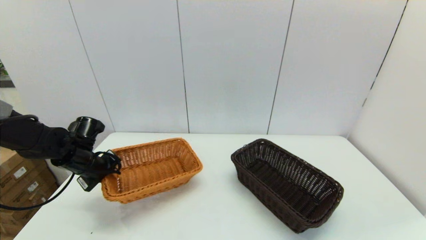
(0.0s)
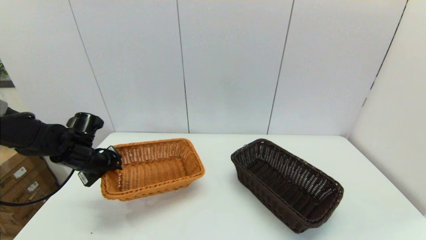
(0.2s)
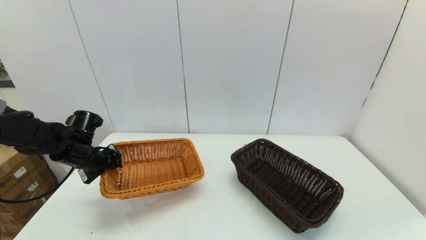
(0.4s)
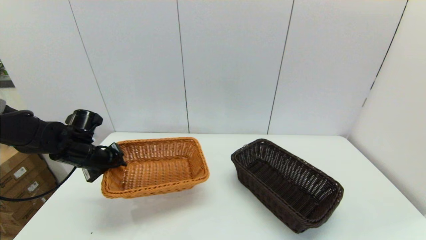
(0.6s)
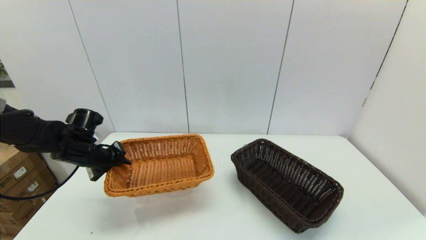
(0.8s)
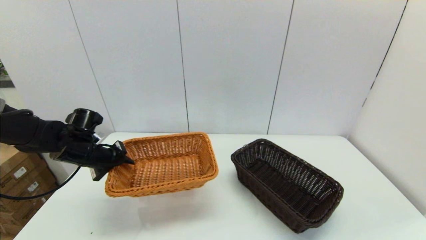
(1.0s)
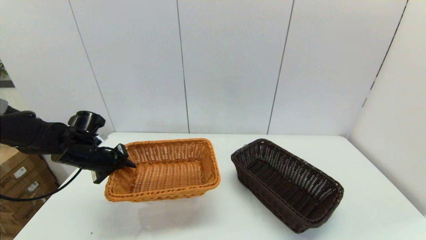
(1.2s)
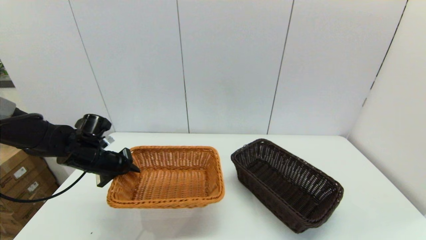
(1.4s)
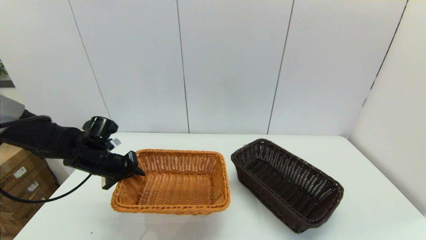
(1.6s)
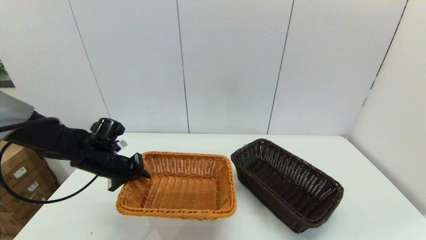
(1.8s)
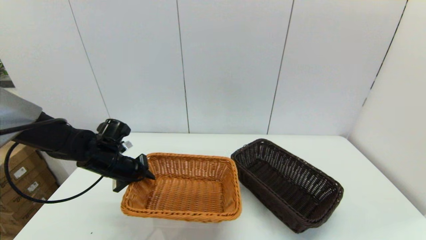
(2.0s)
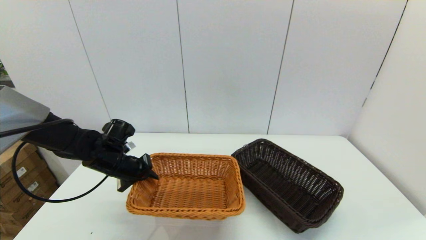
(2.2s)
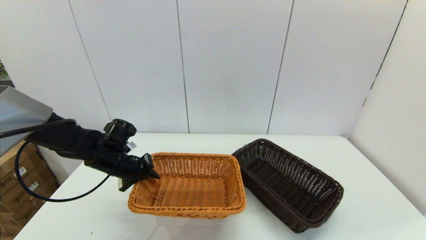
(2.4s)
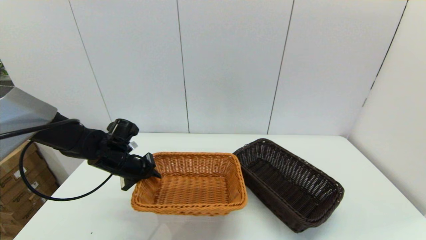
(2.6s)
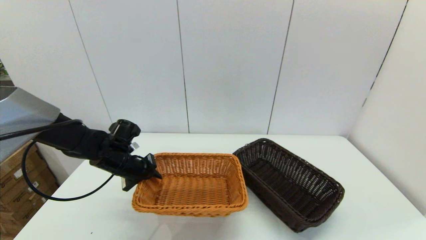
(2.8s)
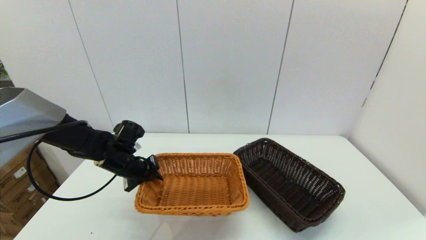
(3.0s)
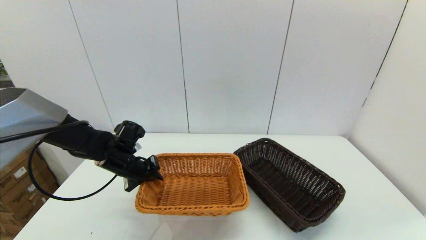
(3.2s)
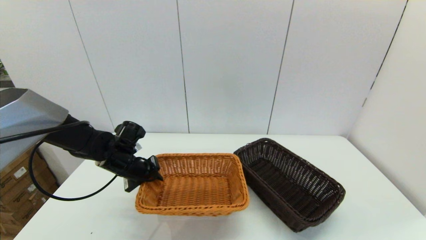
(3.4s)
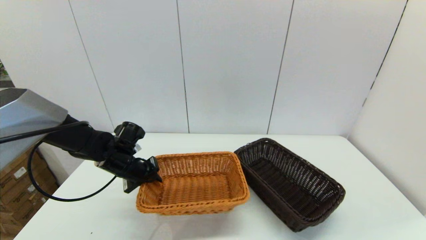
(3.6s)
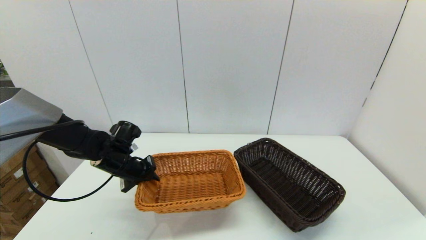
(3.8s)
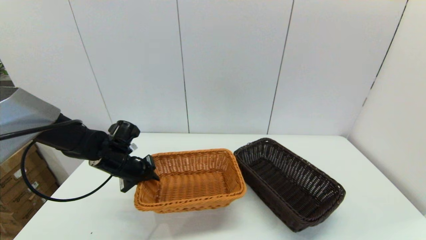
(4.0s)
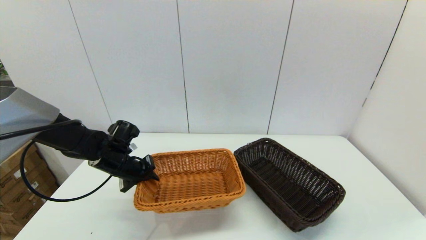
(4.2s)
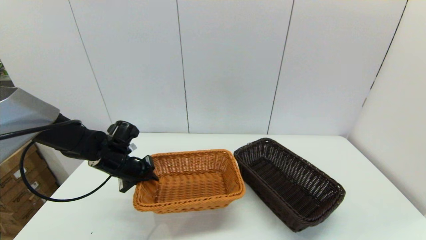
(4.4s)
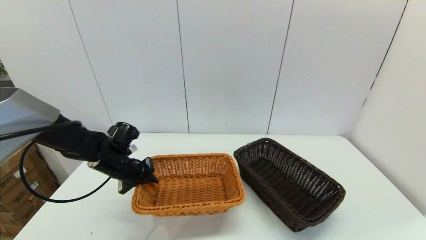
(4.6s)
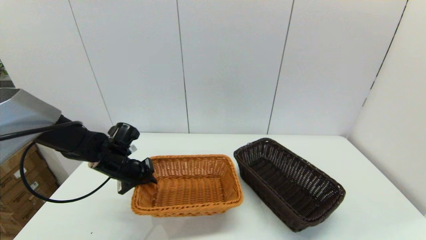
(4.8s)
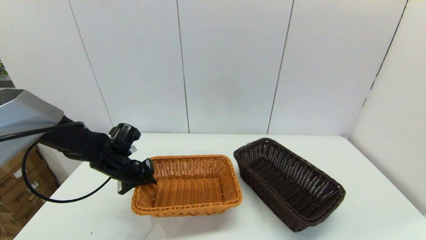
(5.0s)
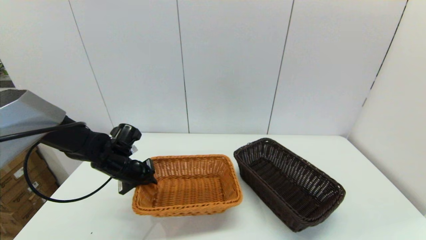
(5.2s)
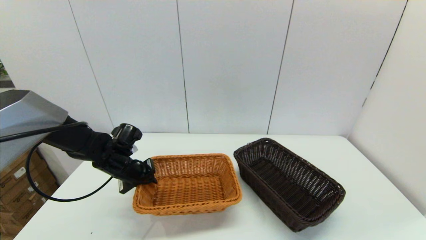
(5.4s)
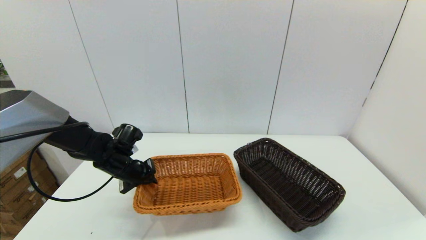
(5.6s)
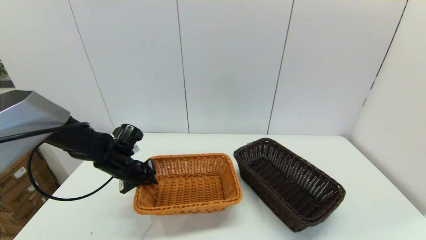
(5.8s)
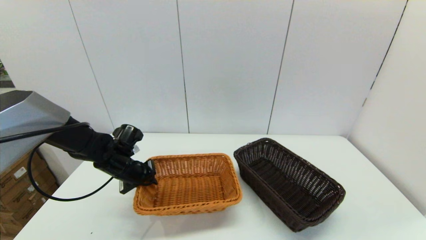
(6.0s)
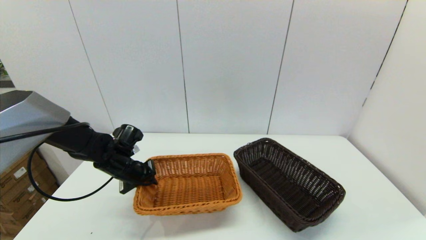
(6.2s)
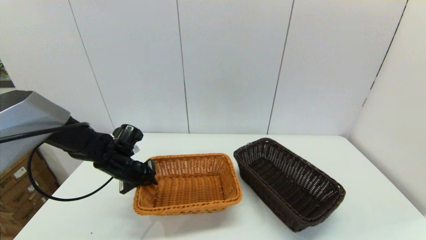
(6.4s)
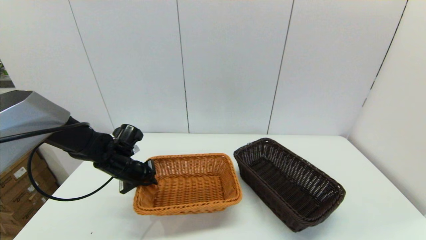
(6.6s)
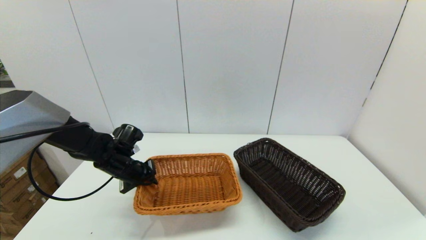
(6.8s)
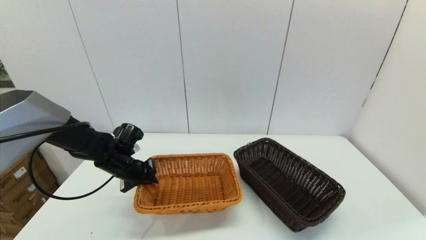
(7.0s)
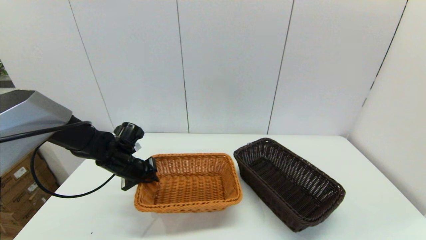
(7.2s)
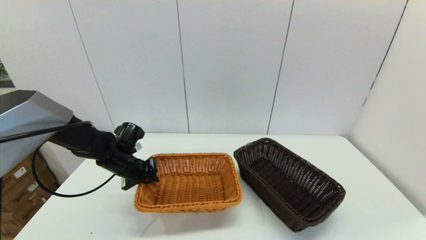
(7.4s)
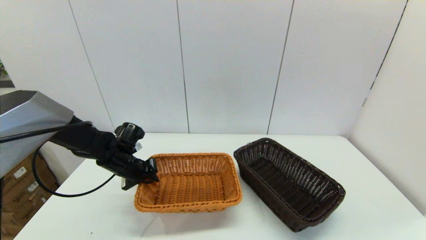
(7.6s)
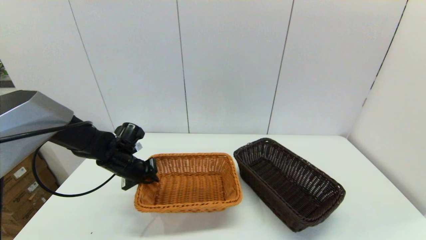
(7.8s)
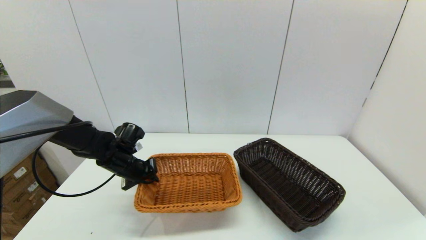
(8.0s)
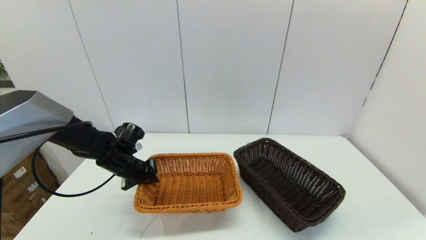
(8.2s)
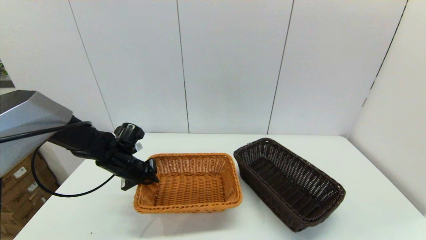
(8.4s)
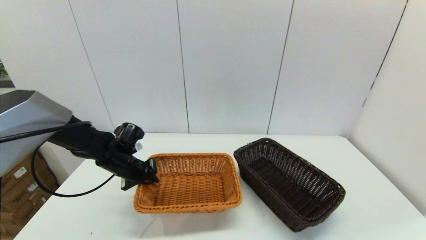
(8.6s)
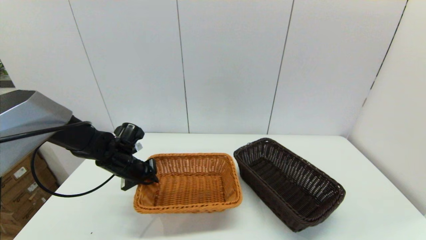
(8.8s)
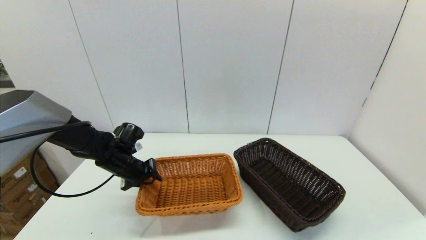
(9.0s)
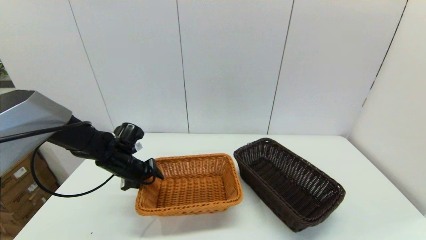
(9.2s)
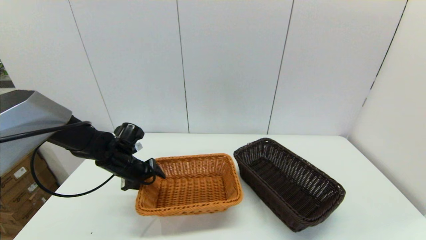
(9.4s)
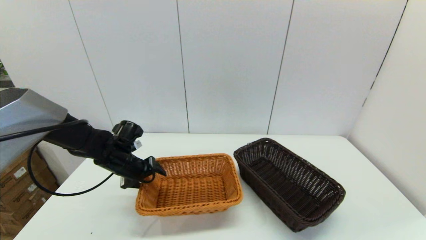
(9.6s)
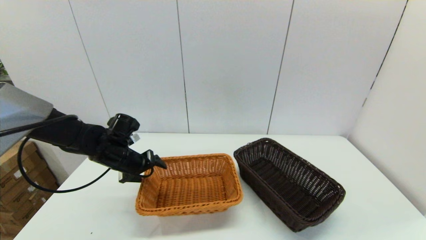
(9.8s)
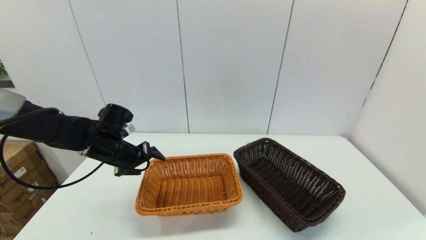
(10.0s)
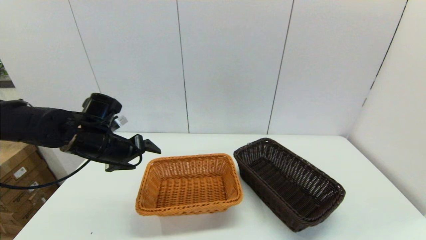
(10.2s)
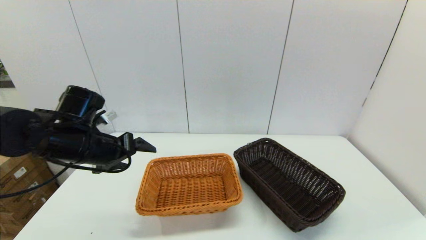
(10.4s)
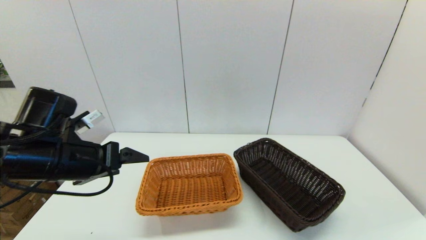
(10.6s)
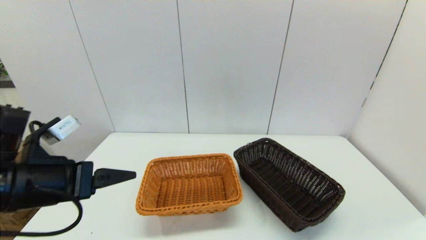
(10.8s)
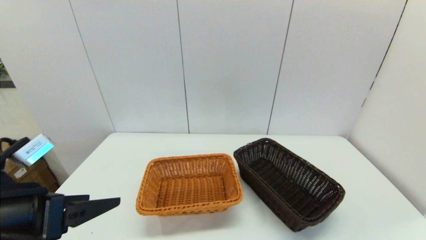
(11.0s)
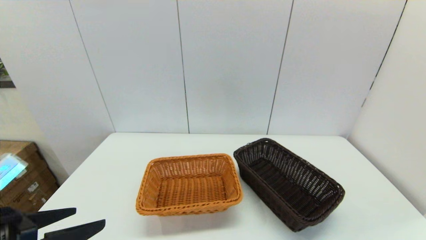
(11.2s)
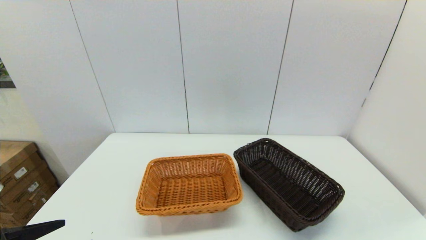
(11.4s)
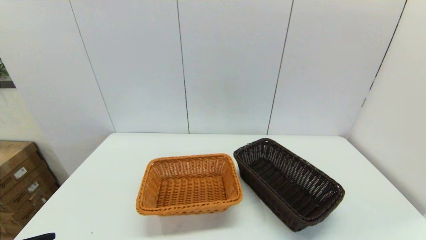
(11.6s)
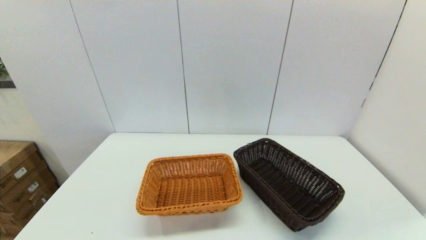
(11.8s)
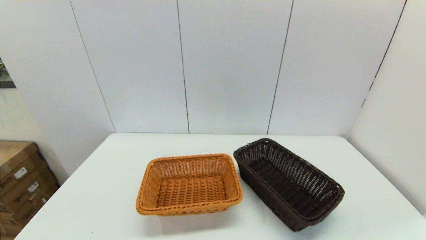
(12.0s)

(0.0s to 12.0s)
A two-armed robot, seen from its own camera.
Task of the whole recording: stack a basket on top of another basket.
Step, 0.0s - 10.2s: Place the light basket on the middle of the table with the left gripper.
1.6s - 3.0s: The left gripper ends up roughly 5 cm from where it was.
3.0s - 4.4s: Both grippers stay put.
4.4s - 6.0s: The grippers move only a little.
6.0s - 7.6s: Both grippers stay about where they are.
7.6s - 9.0s: The left gripper opens.
9.0s - 10.4s: The left gripper travels upward and backward by some 15 cm, and opens.
10.4s - 12.0s: The left gripper goes approximately 25 cm backward.

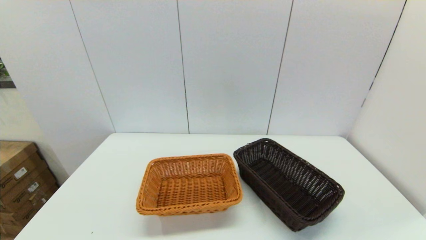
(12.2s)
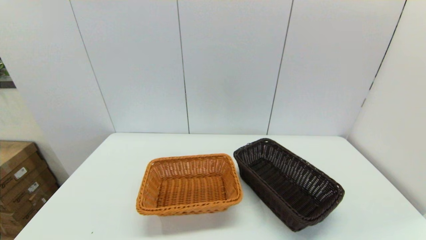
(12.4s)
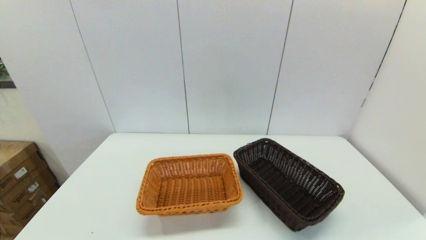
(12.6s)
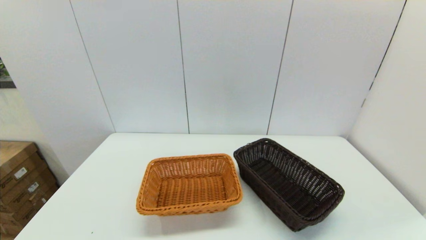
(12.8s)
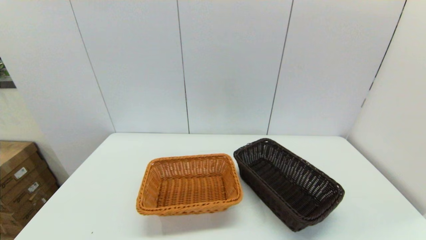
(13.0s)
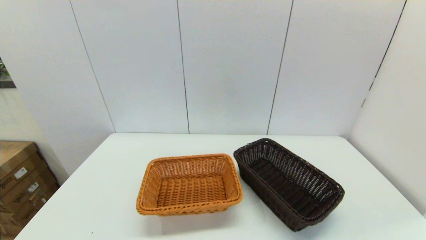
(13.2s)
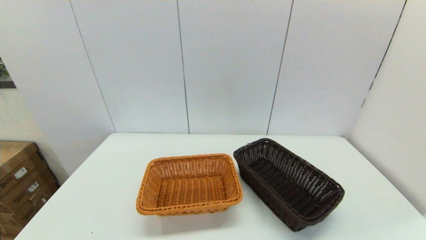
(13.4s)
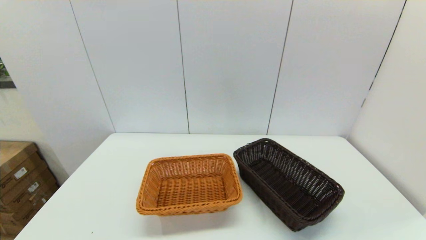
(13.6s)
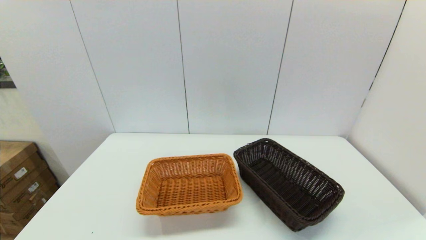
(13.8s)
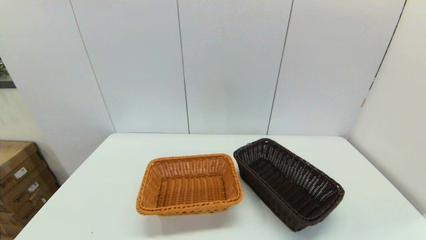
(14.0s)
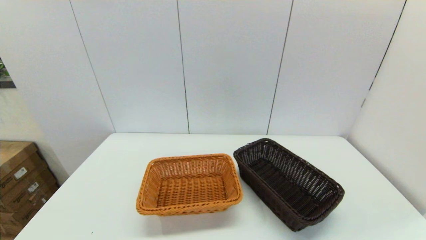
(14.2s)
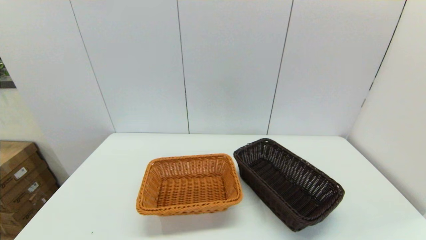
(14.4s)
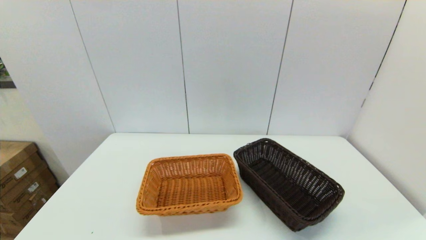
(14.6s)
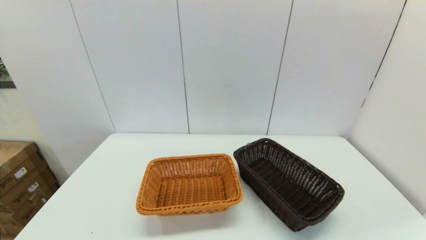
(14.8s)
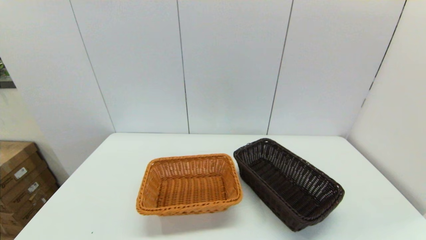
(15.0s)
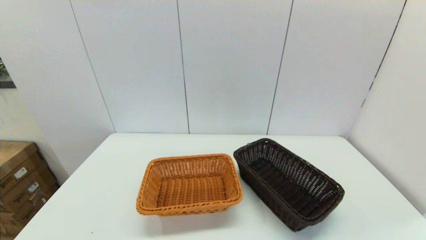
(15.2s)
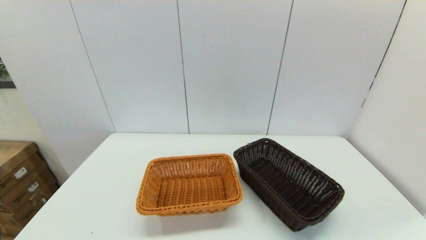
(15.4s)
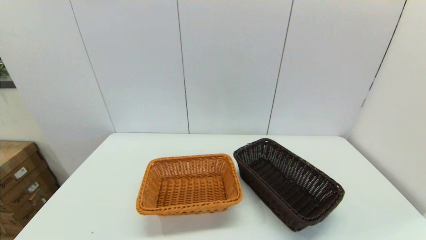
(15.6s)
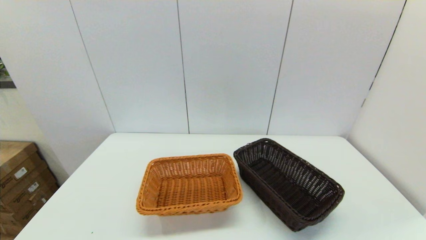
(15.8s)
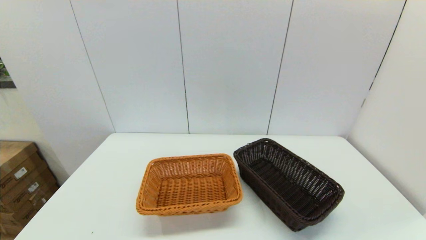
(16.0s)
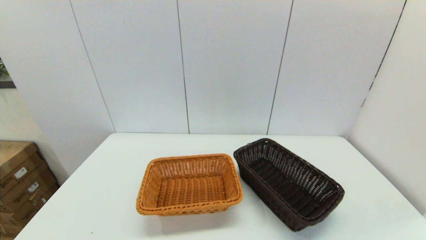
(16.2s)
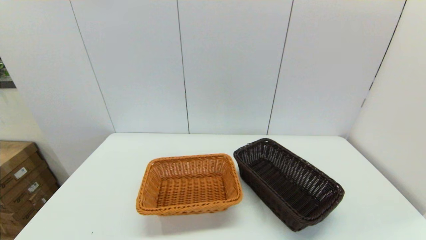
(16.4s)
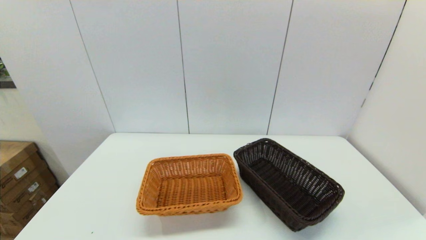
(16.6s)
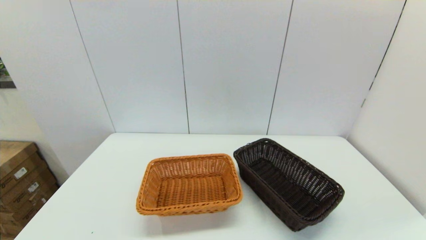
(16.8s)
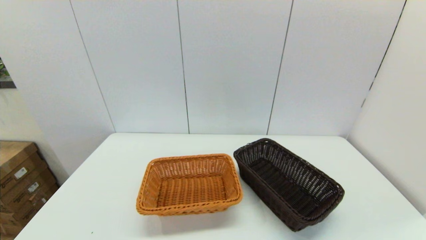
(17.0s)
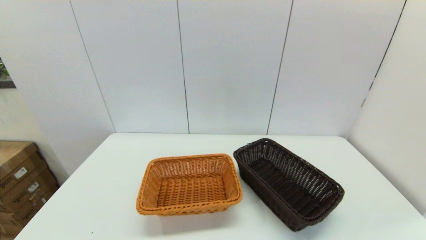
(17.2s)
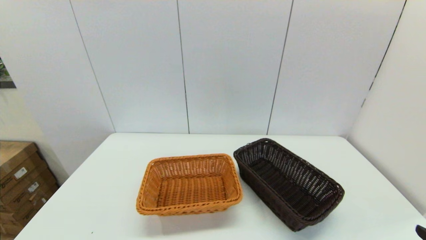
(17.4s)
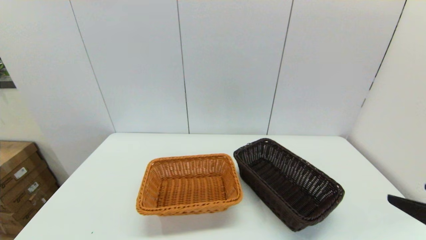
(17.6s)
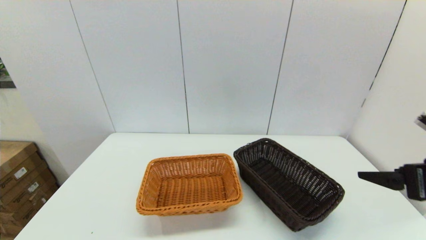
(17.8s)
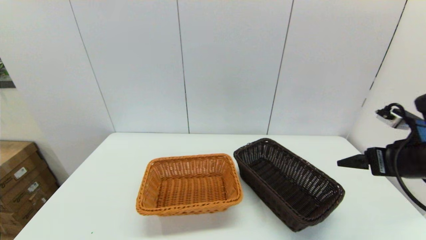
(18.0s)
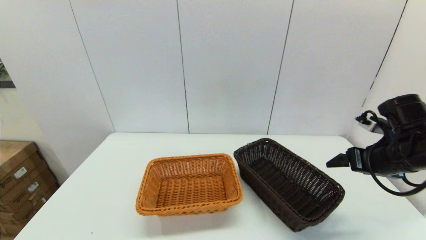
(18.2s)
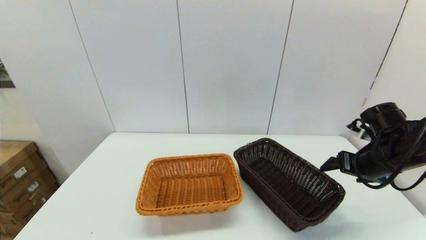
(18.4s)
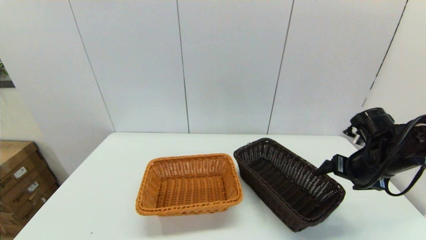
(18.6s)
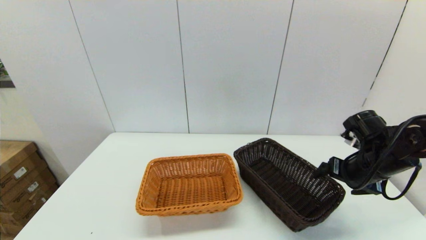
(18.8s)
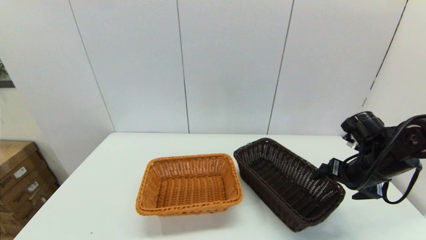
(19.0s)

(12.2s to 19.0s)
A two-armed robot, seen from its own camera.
Task of the whole recording: stack a basket on top of another basket.
15.0s - 16.2s: The two grippers keep their place.
17.6s - 19.0s: The right gripper goes about 20 cm forward and downward.
